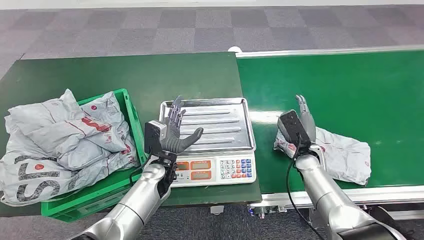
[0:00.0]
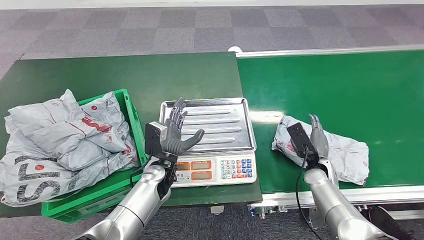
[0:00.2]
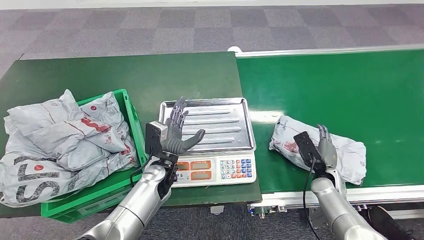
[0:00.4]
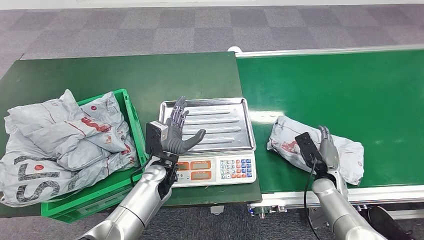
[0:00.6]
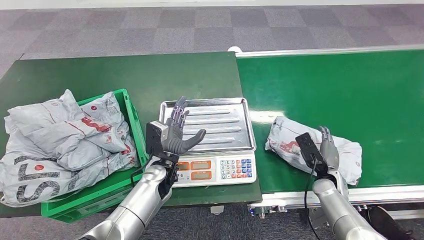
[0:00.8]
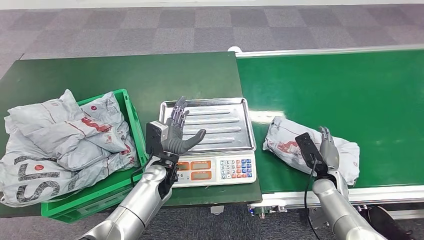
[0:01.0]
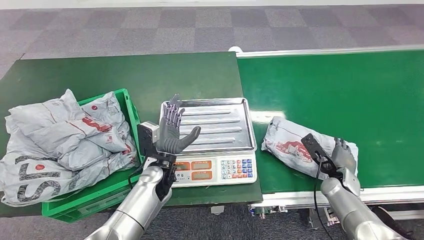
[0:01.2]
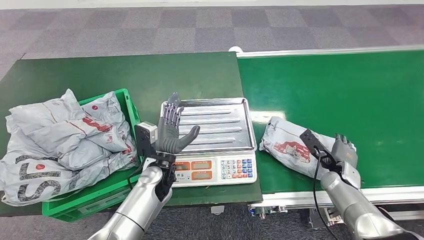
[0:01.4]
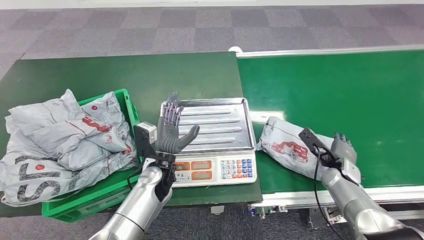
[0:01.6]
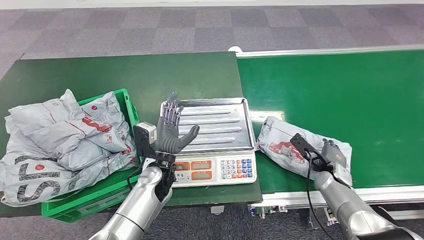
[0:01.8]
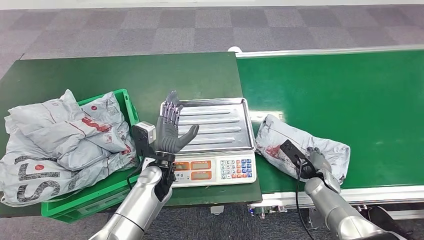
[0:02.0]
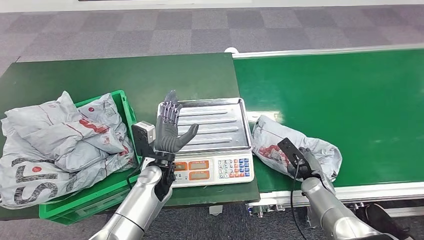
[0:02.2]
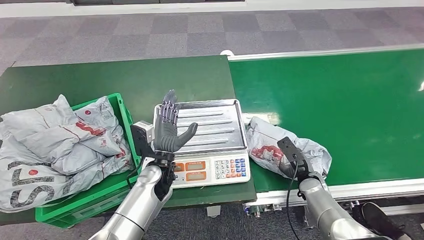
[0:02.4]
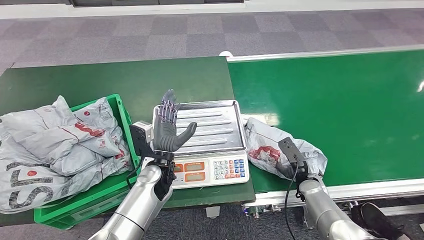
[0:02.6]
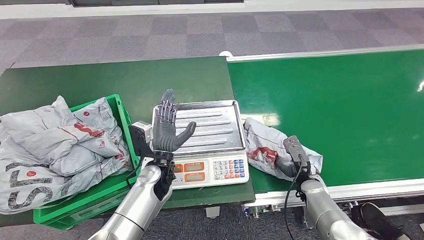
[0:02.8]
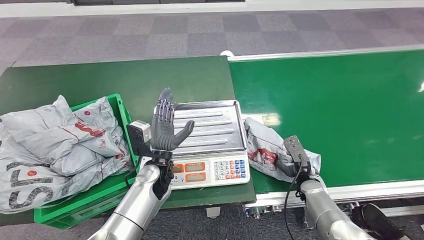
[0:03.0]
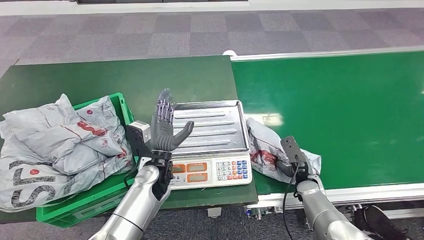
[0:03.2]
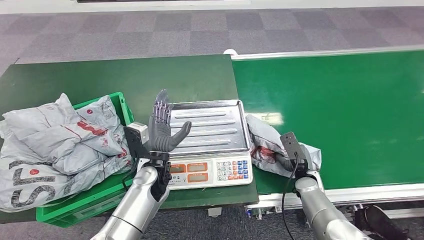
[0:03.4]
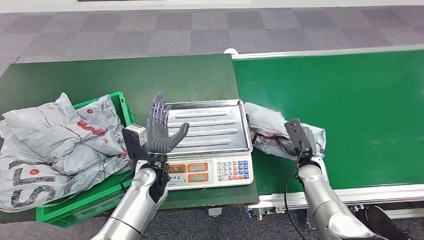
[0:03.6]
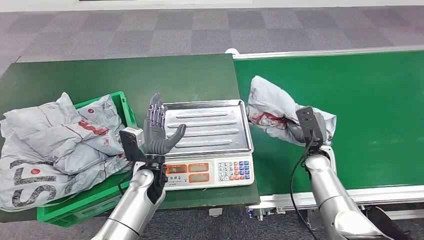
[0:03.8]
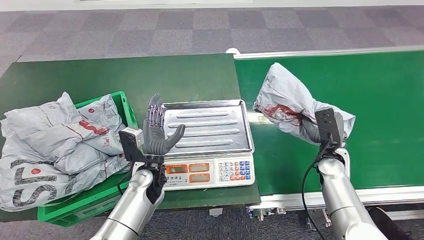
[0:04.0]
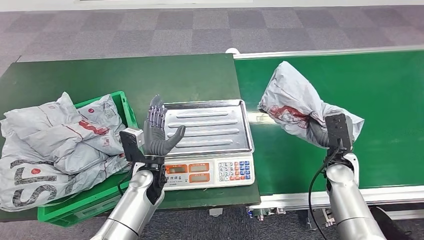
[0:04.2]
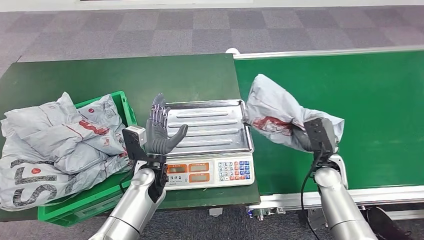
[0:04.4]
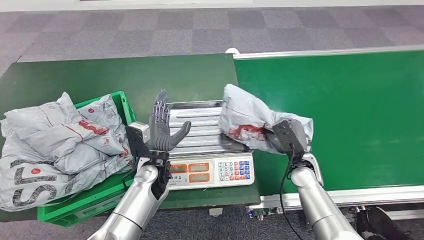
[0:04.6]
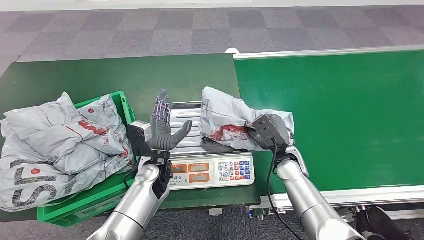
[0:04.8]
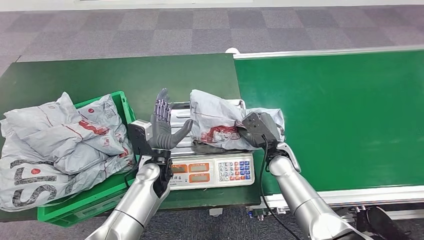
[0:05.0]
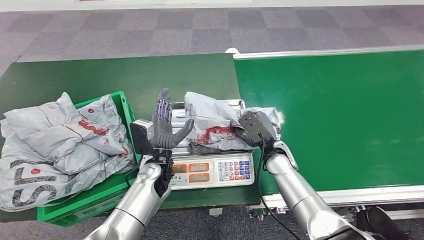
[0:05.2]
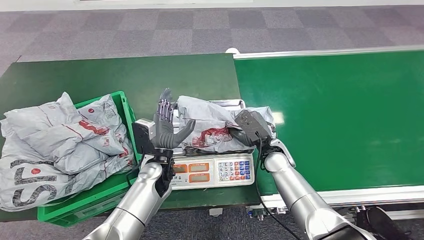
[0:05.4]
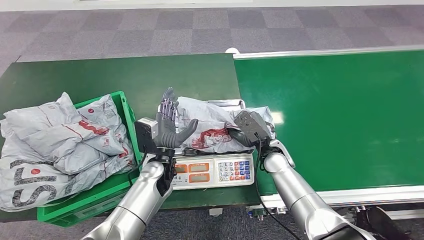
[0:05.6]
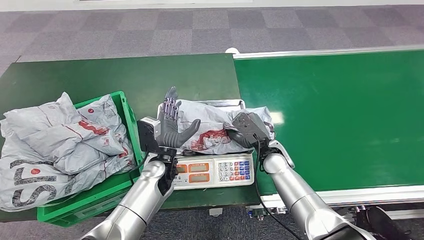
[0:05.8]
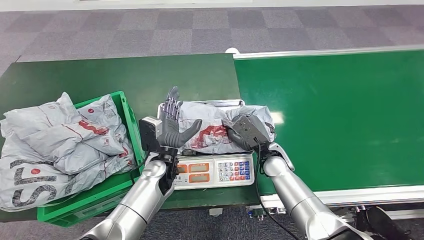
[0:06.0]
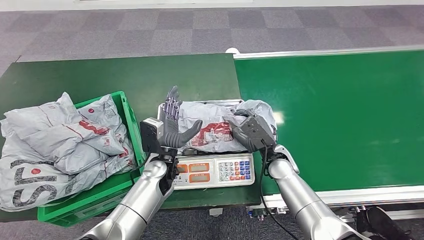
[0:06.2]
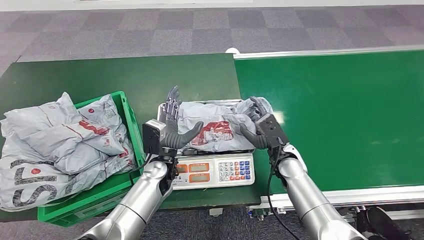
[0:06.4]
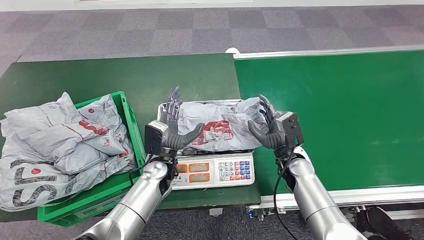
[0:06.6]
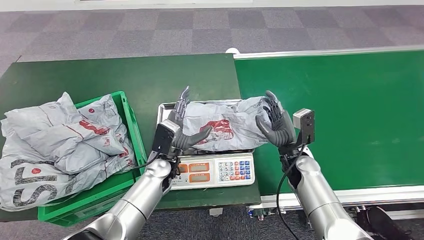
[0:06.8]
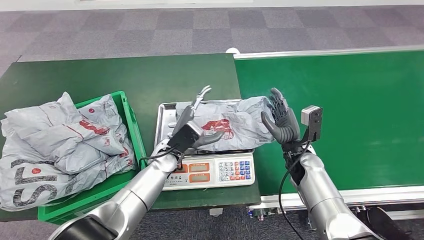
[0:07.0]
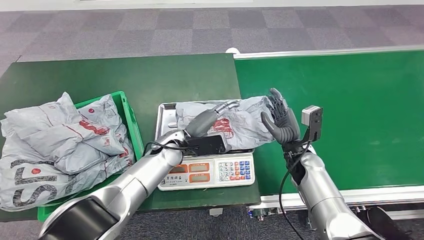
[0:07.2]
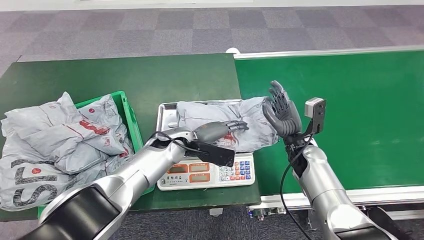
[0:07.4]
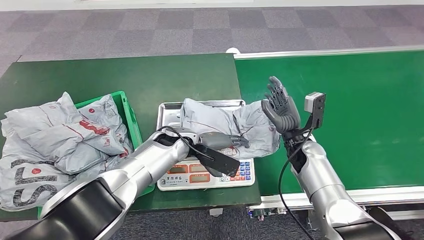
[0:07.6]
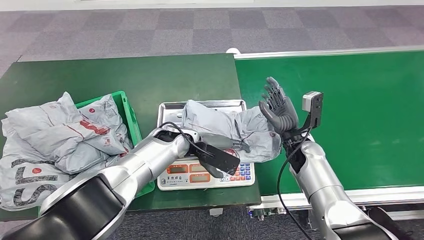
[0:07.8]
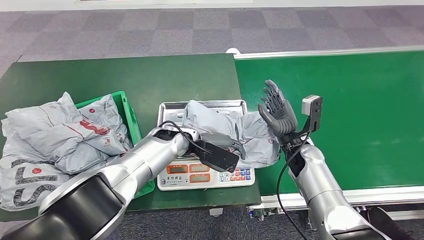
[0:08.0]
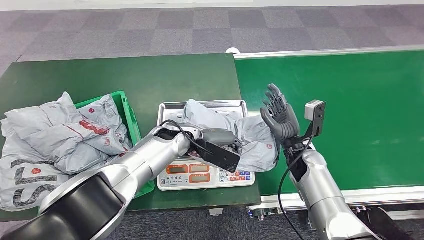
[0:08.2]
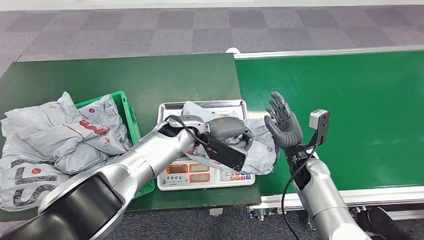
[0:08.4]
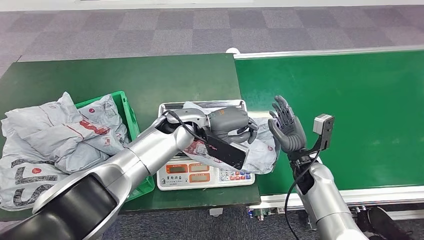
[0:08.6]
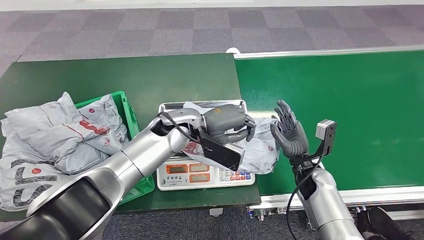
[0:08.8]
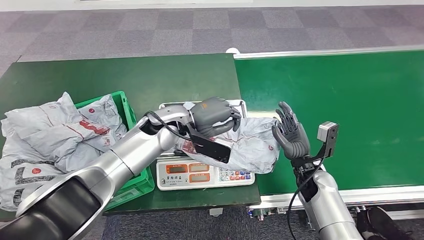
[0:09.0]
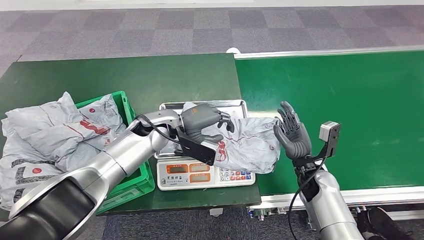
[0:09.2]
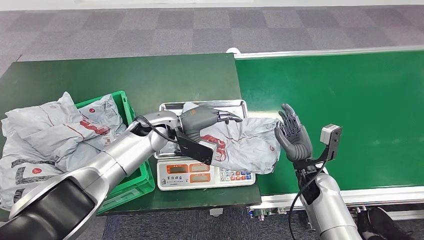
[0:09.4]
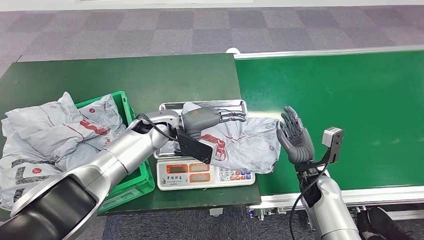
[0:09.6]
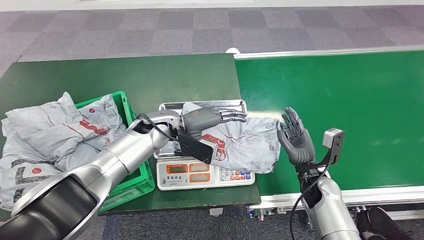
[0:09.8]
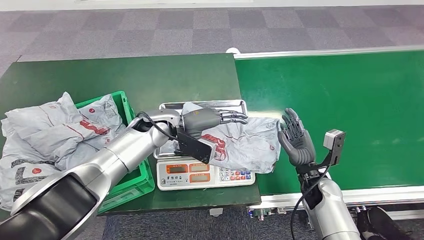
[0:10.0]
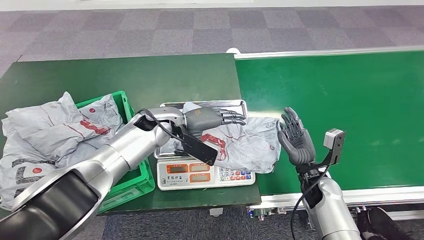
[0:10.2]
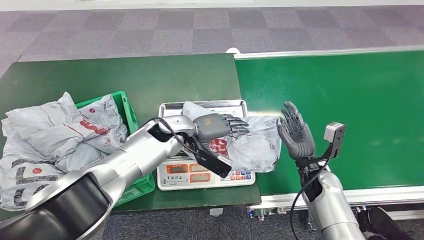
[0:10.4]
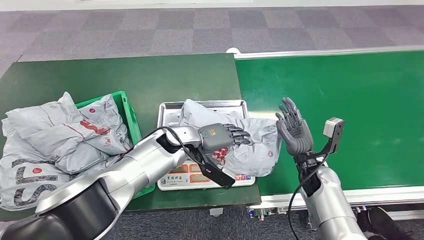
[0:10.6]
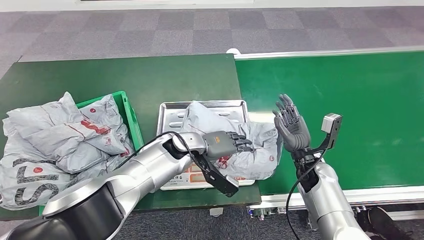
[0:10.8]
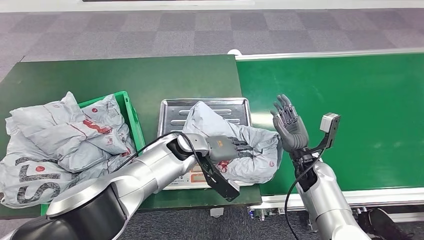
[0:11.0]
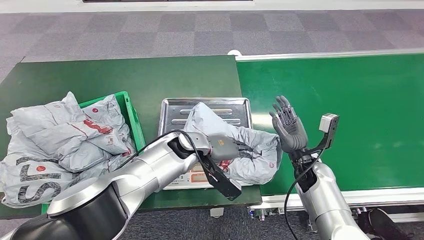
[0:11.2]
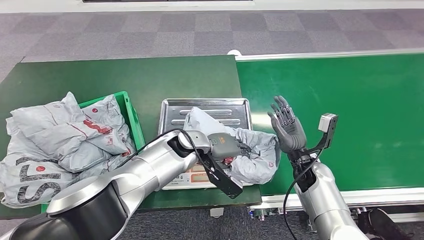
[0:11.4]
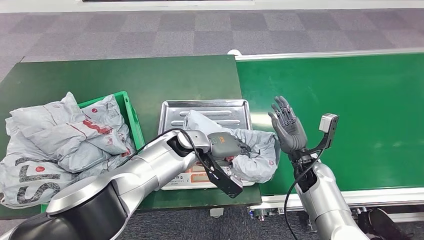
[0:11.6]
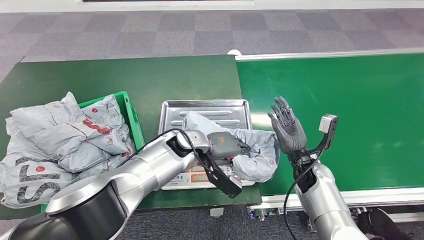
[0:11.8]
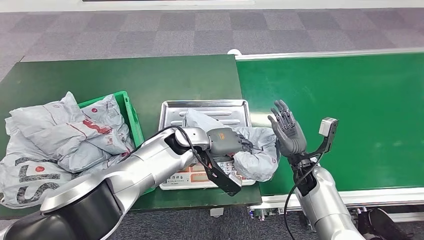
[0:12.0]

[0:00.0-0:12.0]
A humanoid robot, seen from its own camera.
Task of the whole recording: Weigh the package on the weighing device and place it in the left basket.
Step, 0:00.0 to 0:04.0: Pick up the package from the conveyor belt.
Step, 0:04.4 to 0:06.8: Place the package onto the inbound machine.
0:04.4 to 0:06.0: The right hand goes some 15 cm to the left.
0:09.0 to 0:10.4: The hands move only a little.

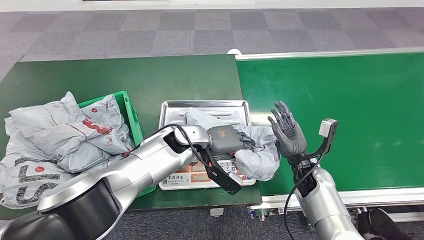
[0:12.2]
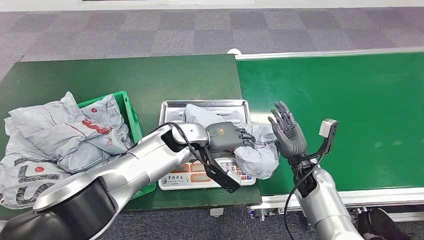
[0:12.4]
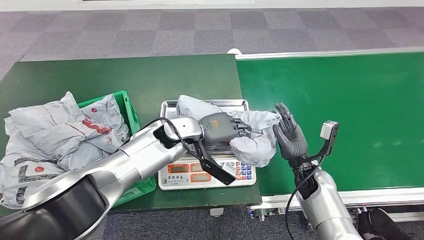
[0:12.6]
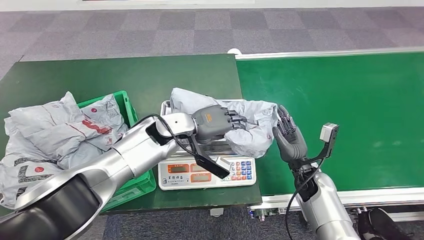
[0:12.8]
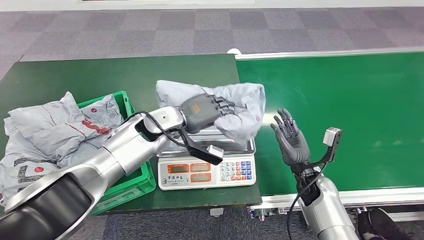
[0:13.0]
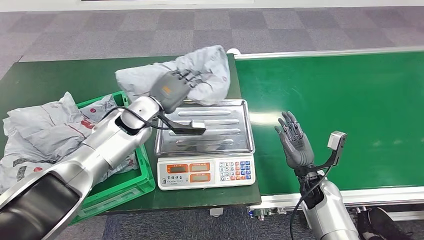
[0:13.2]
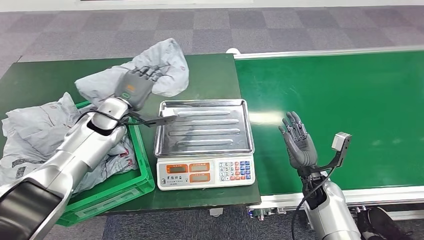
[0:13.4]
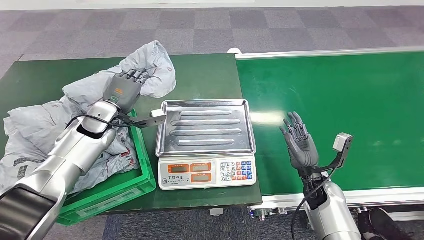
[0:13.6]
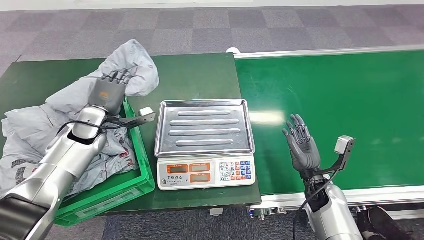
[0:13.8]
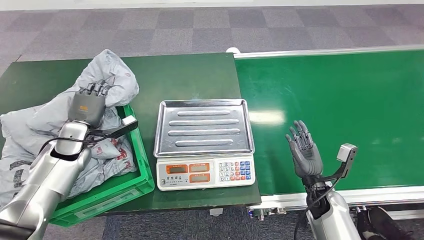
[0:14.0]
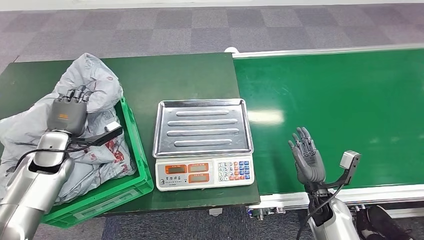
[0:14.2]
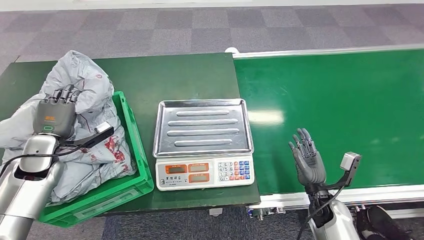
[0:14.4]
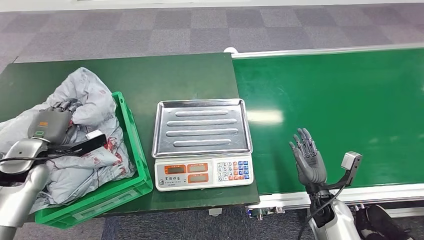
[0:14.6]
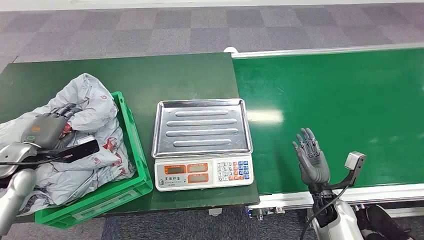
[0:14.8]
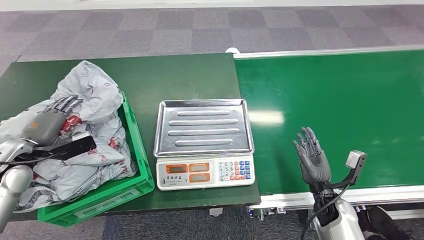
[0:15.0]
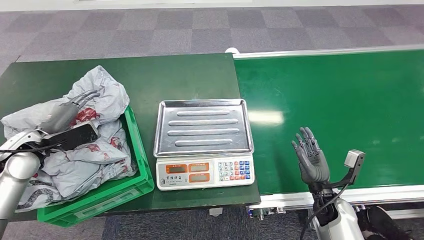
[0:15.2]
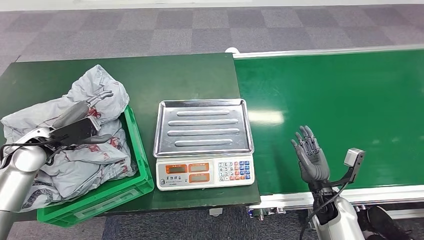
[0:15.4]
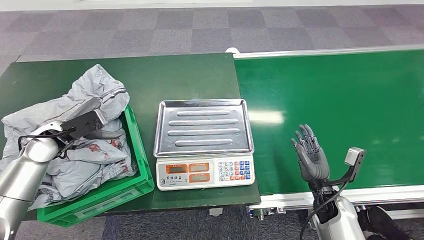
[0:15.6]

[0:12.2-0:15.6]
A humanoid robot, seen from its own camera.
Task of the whole recording: Weigh the package on the weighing device and place it in the left basket.
Step, 0:13.2 to 0:15.6: Place the package into the parcel locker.
0:13.8 to 0:15.6: The left hand heads to the left and backward, covering roughly 10 cm.
